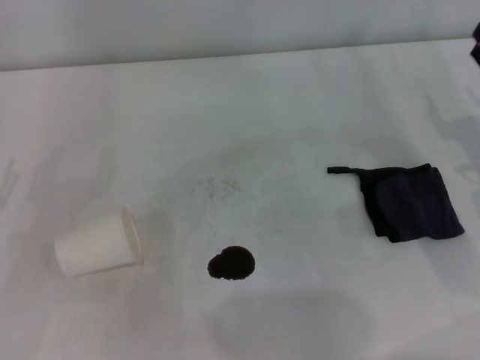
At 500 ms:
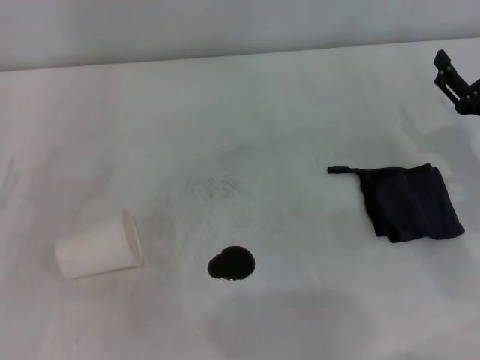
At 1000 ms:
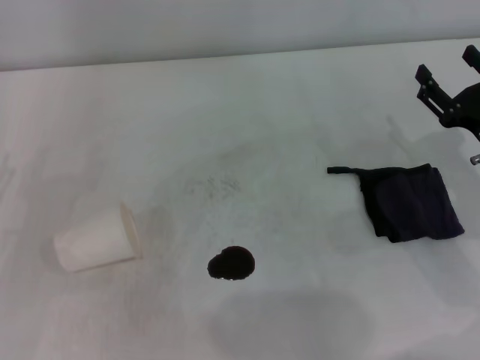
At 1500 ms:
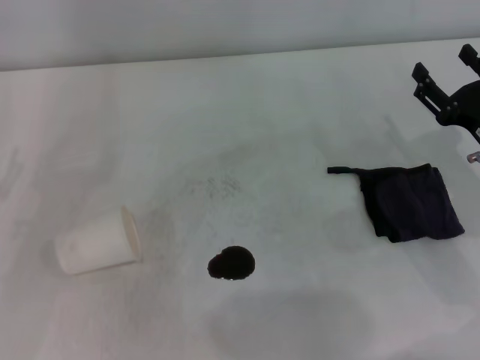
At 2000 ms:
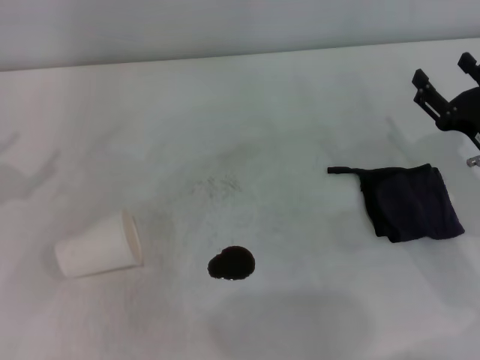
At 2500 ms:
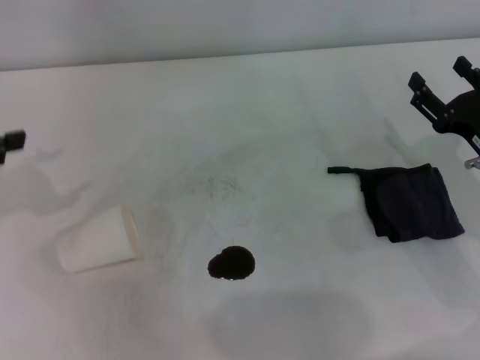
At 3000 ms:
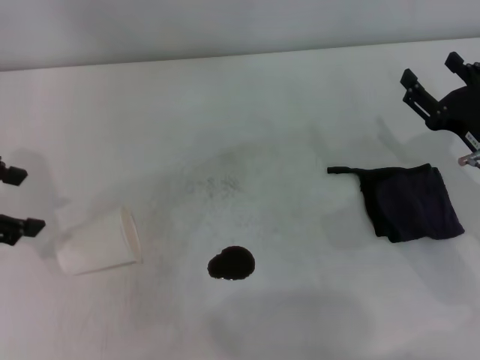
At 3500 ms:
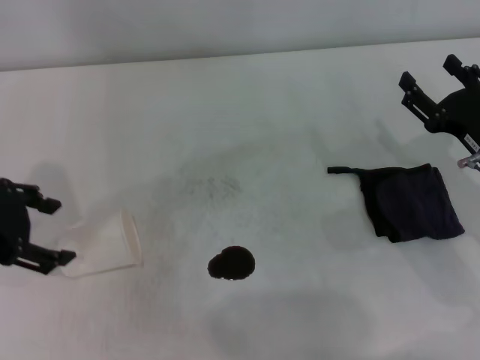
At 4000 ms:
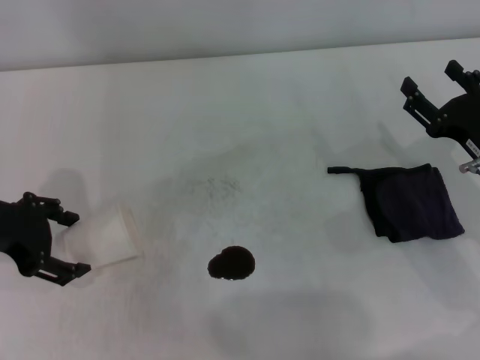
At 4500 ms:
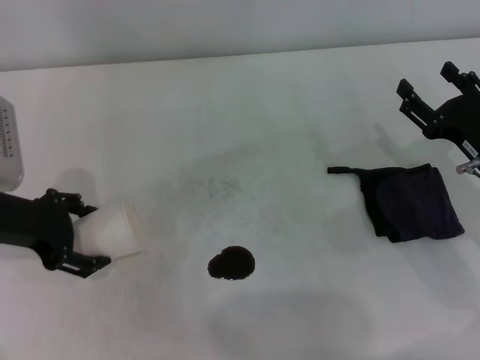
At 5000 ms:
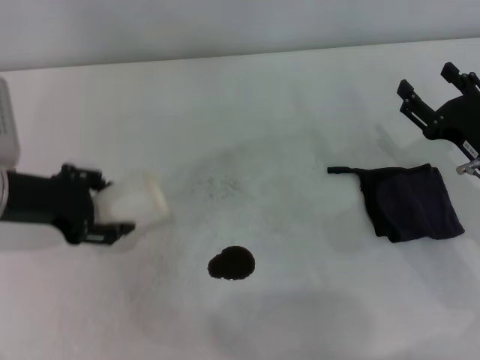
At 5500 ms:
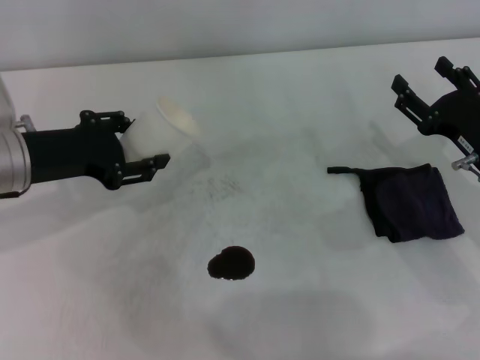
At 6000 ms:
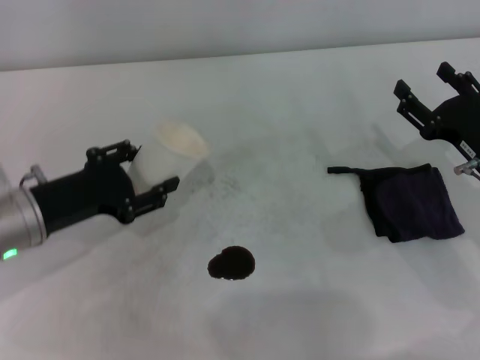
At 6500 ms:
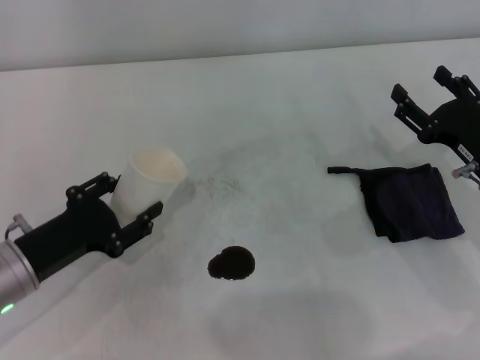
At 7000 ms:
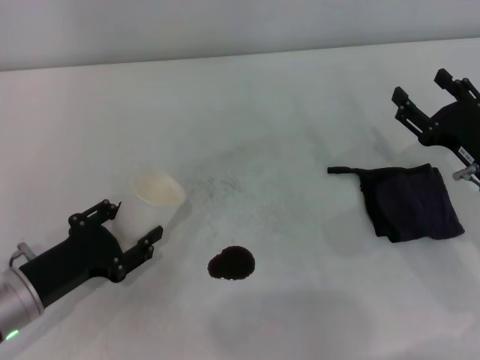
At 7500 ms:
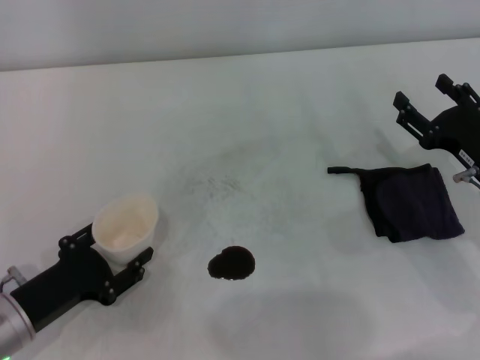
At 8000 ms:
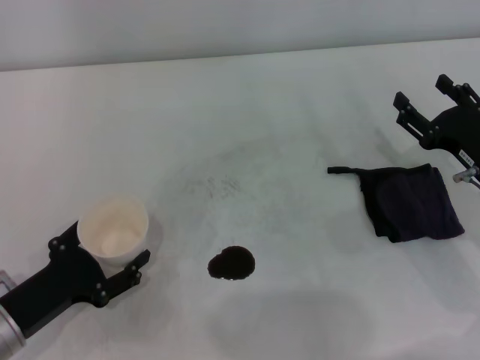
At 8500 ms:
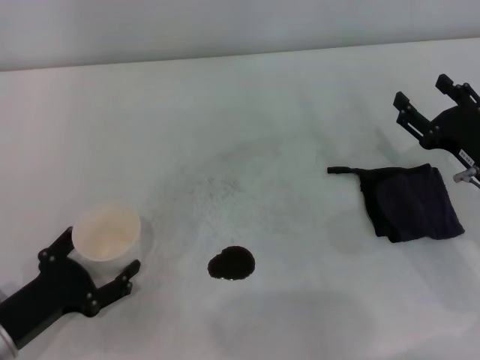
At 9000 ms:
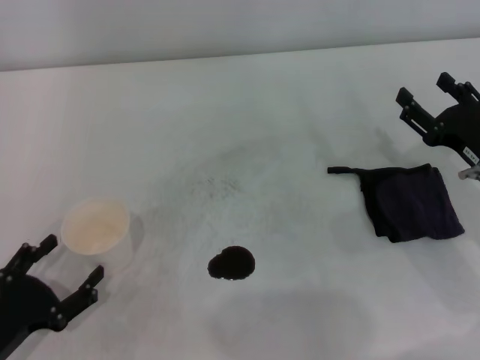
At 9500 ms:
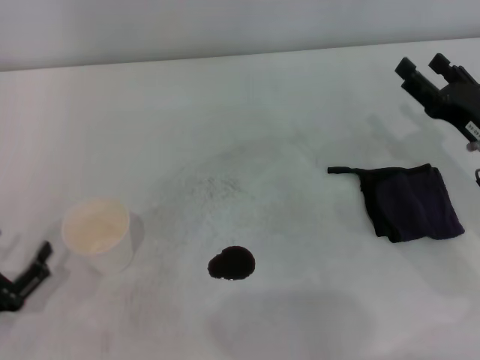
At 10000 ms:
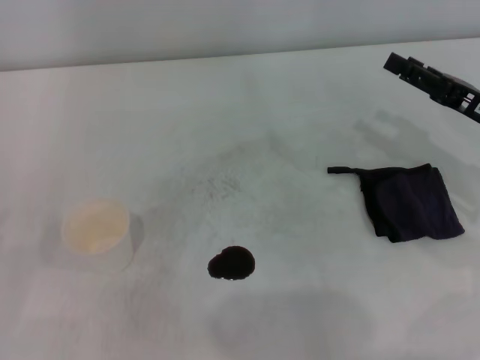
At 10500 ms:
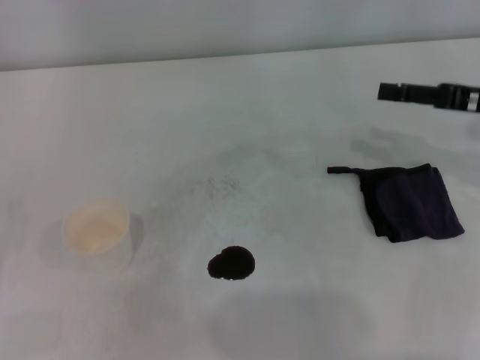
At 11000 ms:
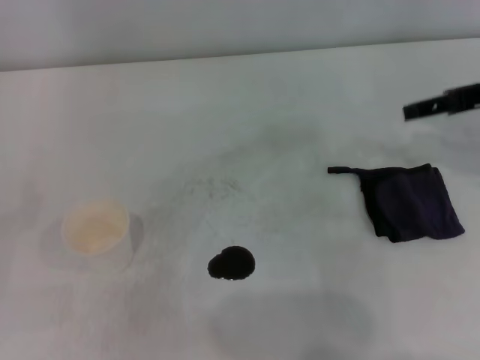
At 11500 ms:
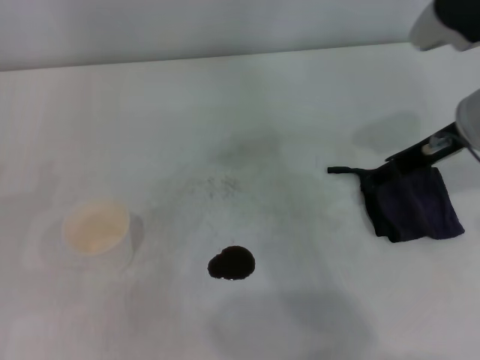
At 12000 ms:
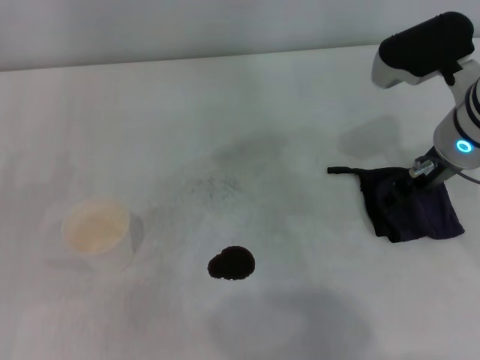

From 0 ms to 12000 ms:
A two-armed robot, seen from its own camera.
Step, from 0 ms to 4500 ms: Grasp the paper cup with the left gripper.
Step, from 5000 ms to 8500 ms: Stand the paper cup upright with the left gripper.
From 2000 ms to 4000 ms: The left gripper goes some 10 cm to the right, and travels upward and back again, approximately 10 cm each way.
From 4000 ms to 6000 ms: The left gripper travels downward by approximately 5 cm, and closes its fingers.
From 6000 ms to 8000 ms: The left gripper goes roughly 10 cm backward and downward.
From 8000 ms to 10000 ms: The left gripper goes approximately 10 cm to the left, and opens up. Meanwhile the right gripper shifts about 5 cm upward.
From 10000 ms to 12000 ms: The right gripper goes approximately 15 cm to the left and upward.

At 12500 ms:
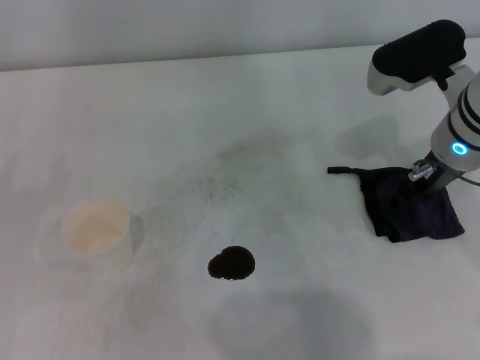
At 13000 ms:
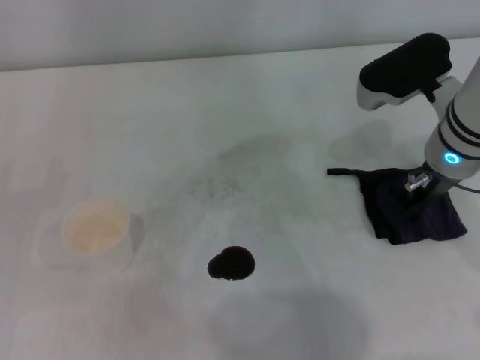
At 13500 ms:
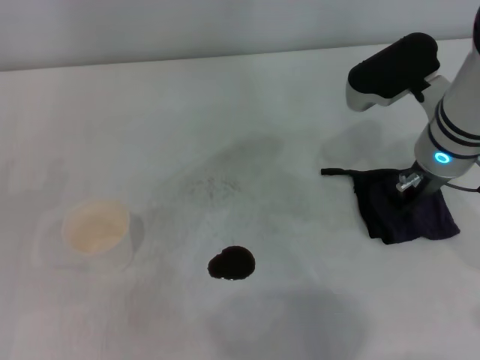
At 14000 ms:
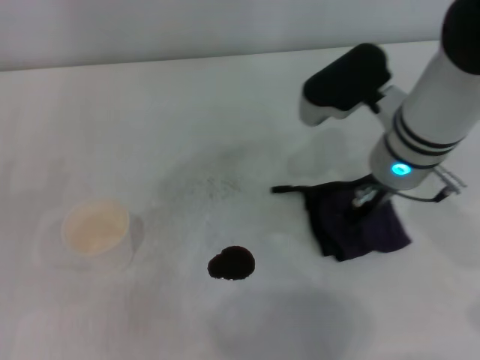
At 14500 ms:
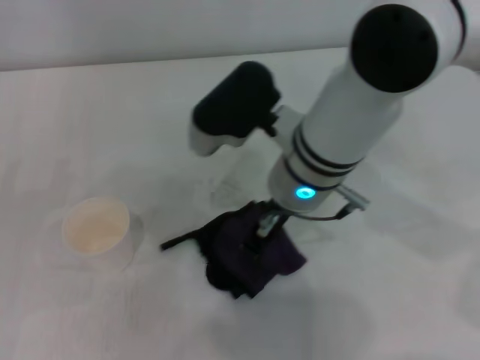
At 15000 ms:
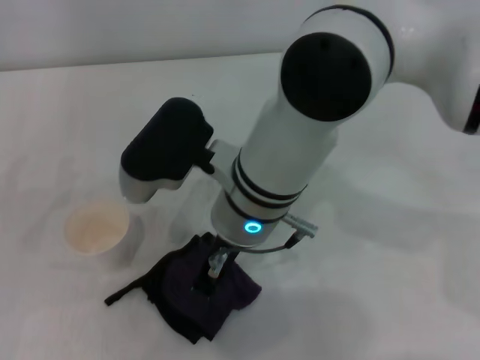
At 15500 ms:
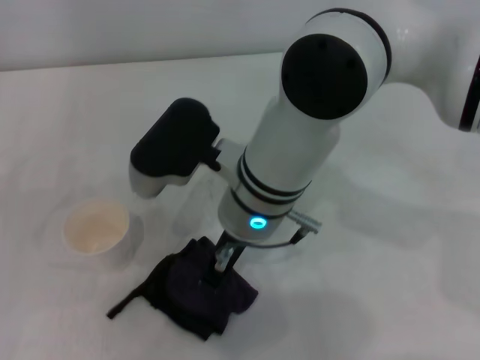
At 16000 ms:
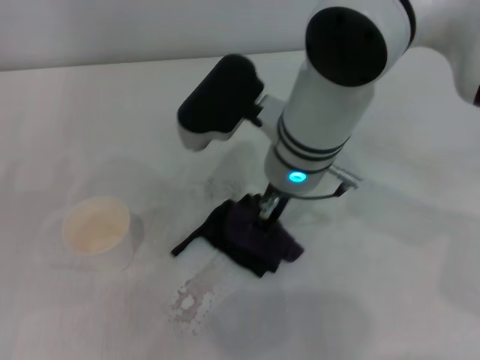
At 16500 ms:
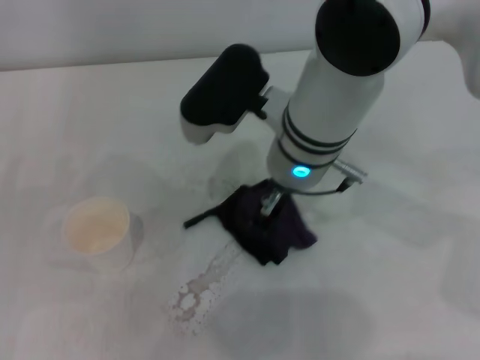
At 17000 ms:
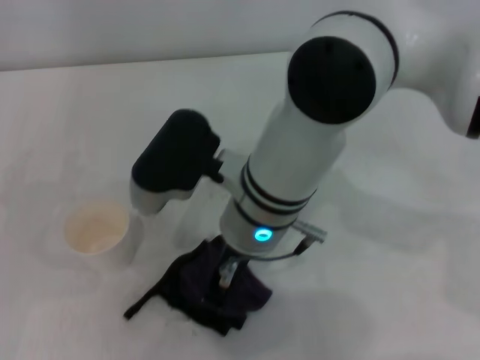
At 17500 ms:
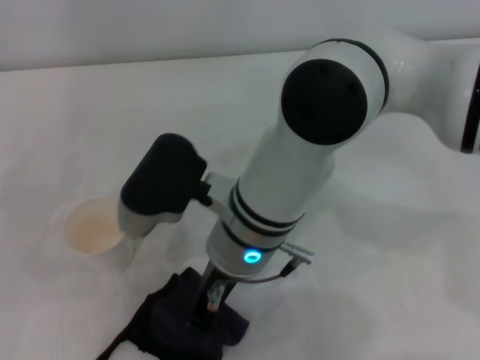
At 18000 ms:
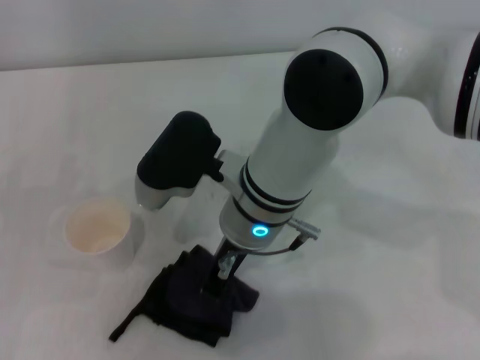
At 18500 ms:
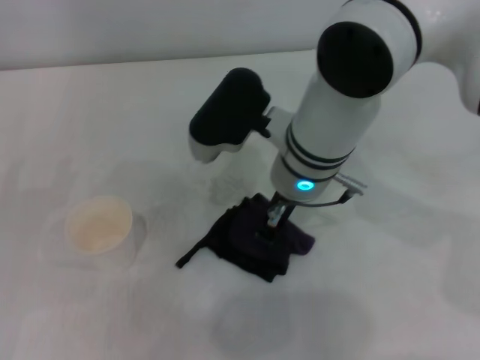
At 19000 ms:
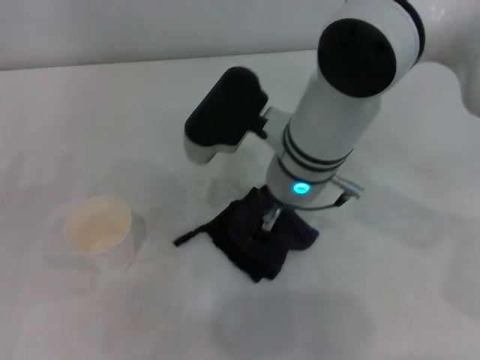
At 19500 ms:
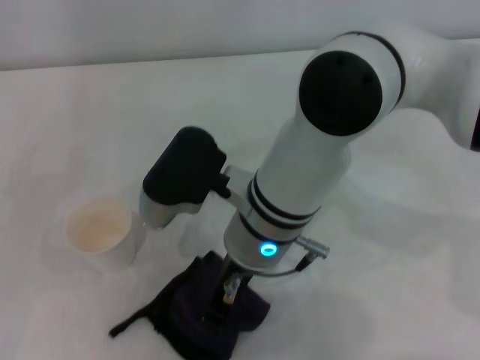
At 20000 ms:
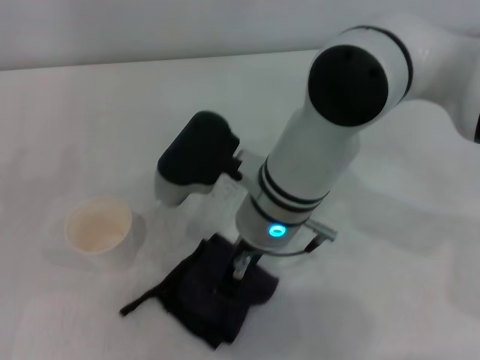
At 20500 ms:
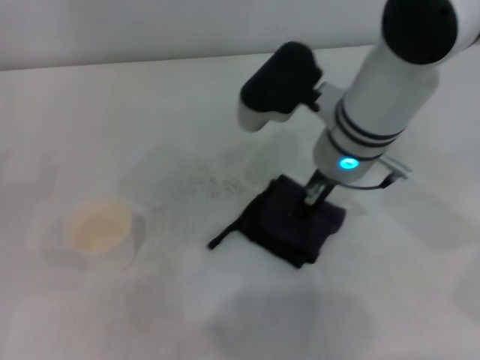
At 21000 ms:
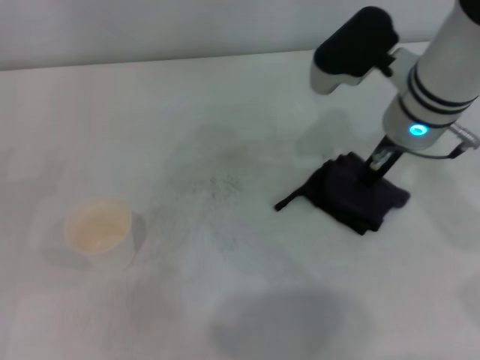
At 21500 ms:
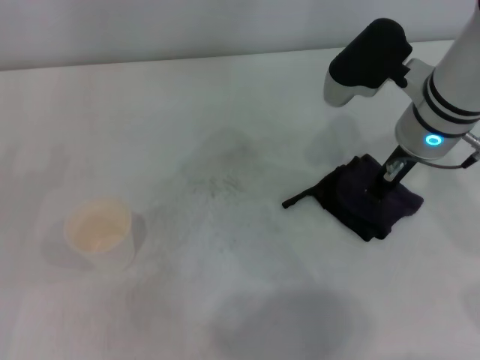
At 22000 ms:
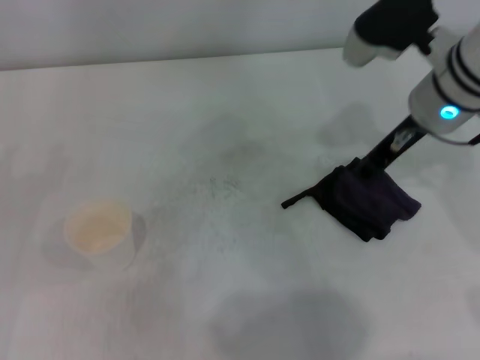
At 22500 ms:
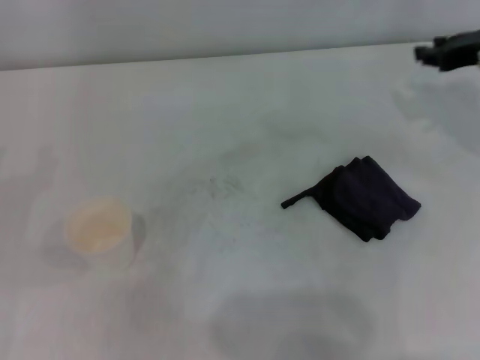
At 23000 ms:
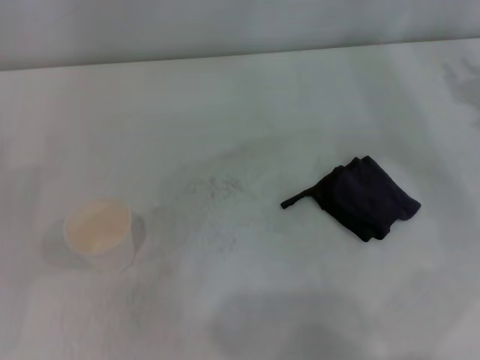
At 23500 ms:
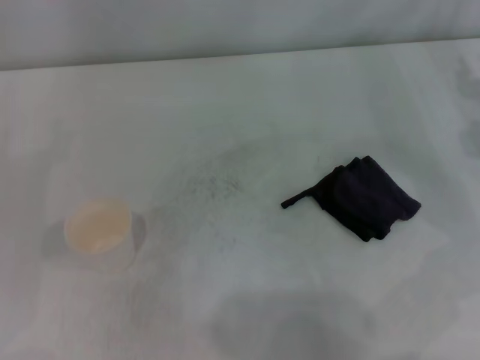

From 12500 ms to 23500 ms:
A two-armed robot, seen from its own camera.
Step, from 13500 ms to 21000 ms: Wipe the stains off the table with the right gripper.
From 12500 ms to 14500 ms: The right gripper is displaced to the left by approximately 15 cm, and closes up.
From 14500 ms to 16000 ms: The grippers stay close to where they were, moving slightly.
From 16000 ms to 18000 ms: The right gripper shifts by about 5 cm.
From 20000 ms to 21500 ms: The right gripper is displaced to the right by roughly 15 cm.
From 21500 ms to 23500 ms: The right gripper goes approximately 20 cm to the right.

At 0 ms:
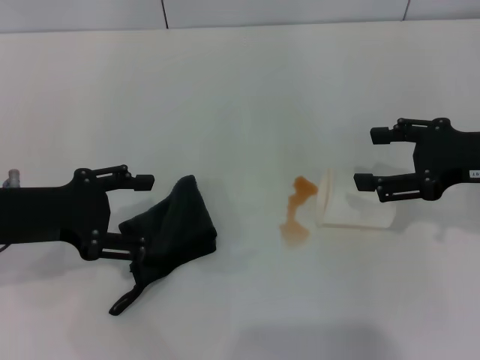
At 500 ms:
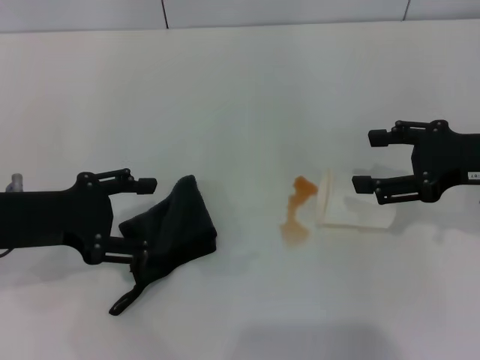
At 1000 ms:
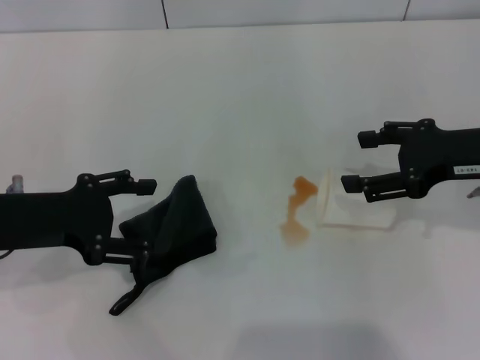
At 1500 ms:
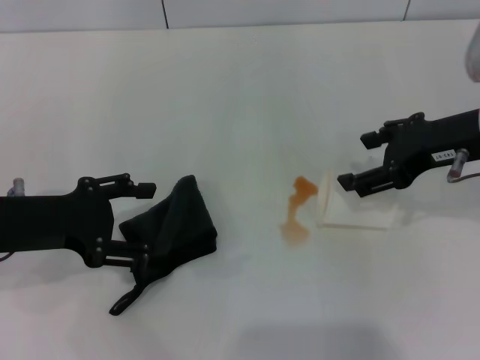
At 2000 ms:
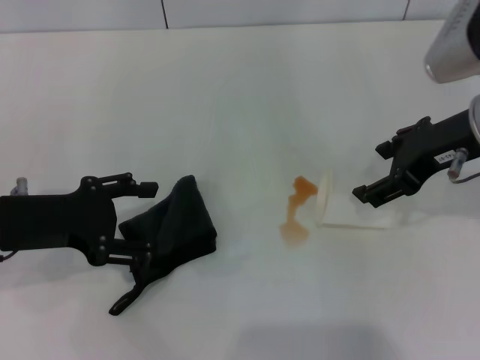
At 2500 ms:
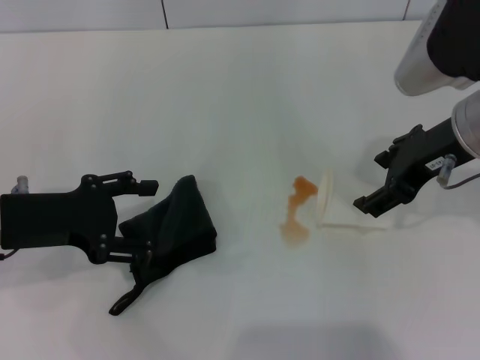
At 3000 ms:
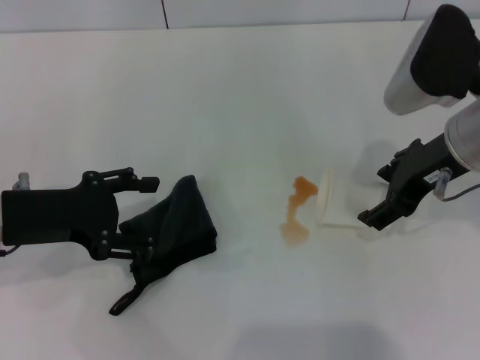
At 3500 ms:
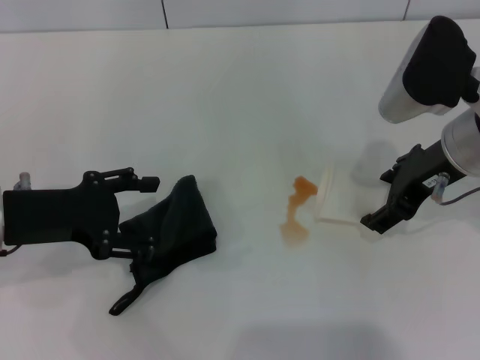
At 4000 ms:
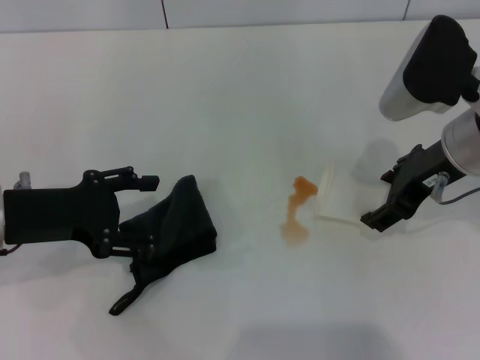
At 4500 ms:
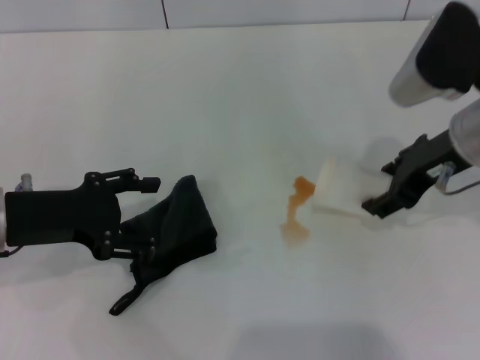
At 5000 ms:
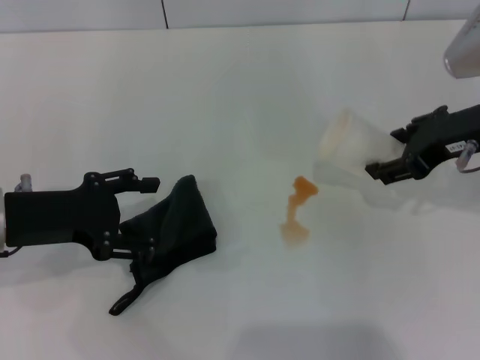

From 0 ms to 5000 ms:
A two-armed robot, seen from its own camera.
Step, from 0 ms to 4000 ms: Grasp the paper cup with the right gripper.
From 0 ms to 2500 ms: The right gripper travels to the left by some 10 cm.
From 2500 ms to 5000 ms: The right gripper closes up.
